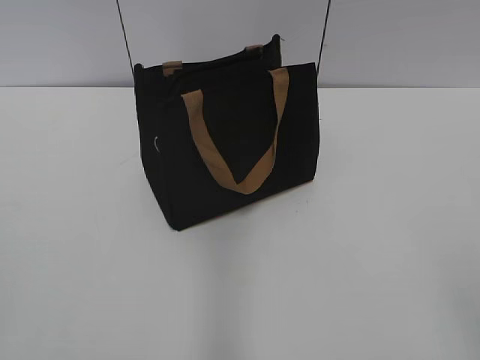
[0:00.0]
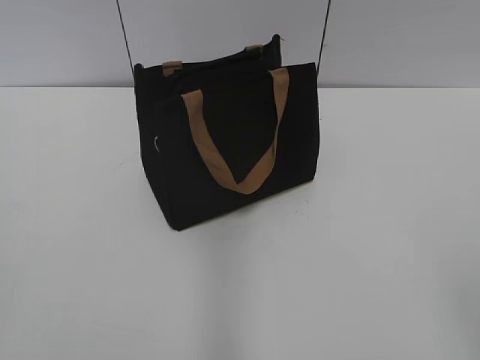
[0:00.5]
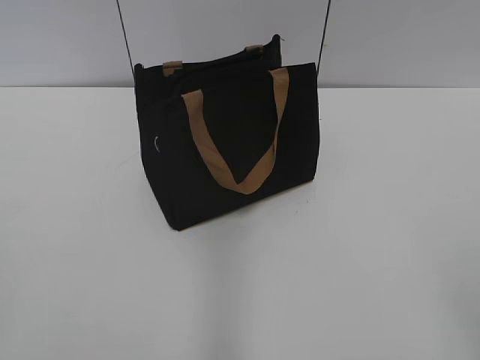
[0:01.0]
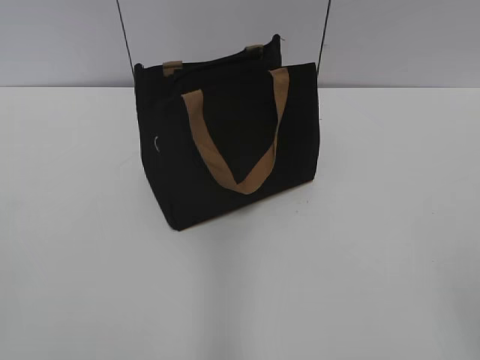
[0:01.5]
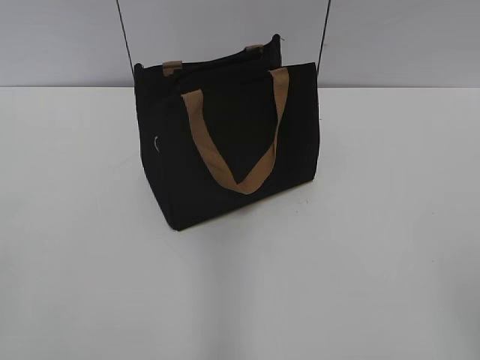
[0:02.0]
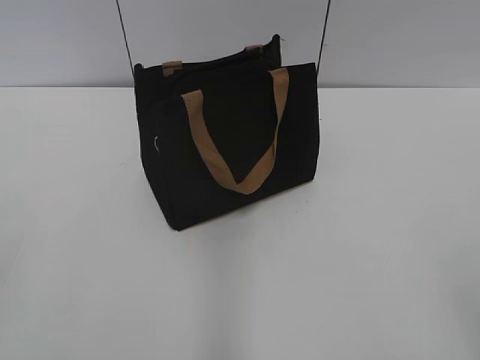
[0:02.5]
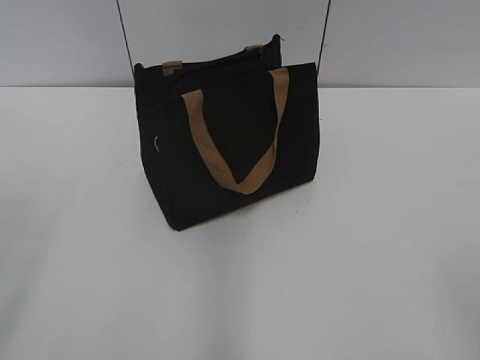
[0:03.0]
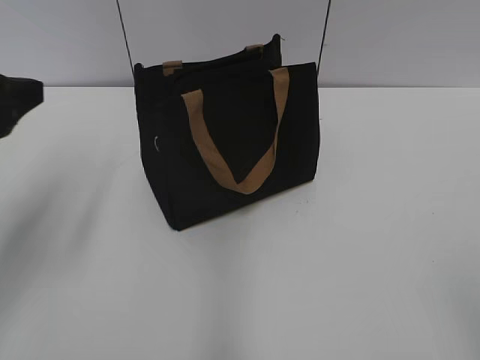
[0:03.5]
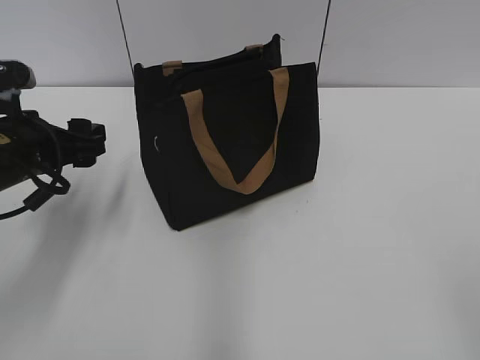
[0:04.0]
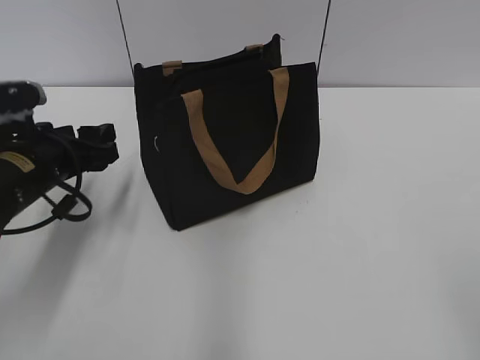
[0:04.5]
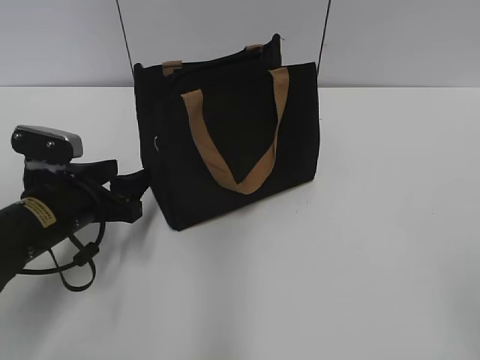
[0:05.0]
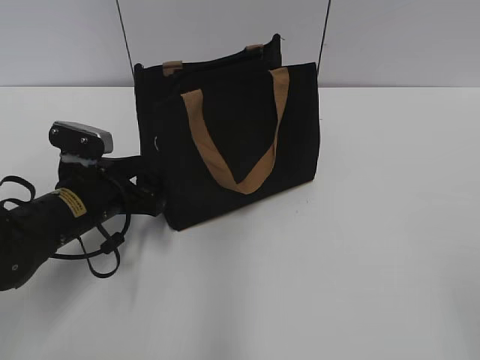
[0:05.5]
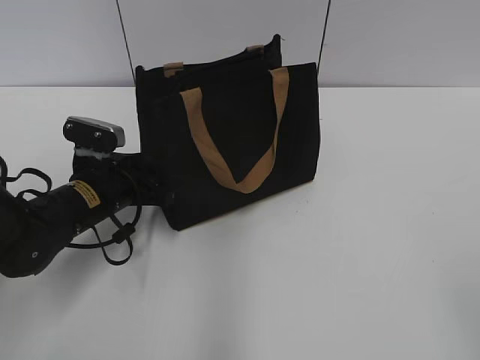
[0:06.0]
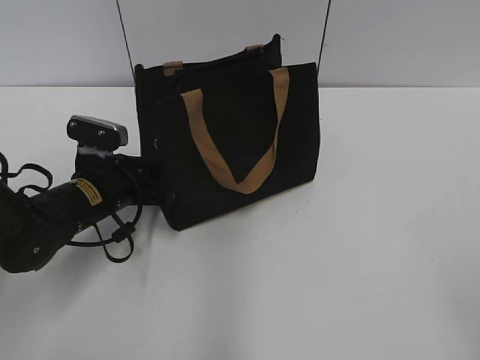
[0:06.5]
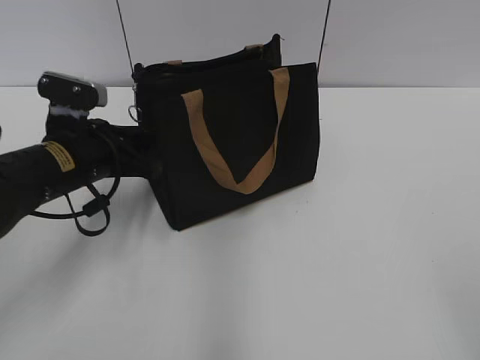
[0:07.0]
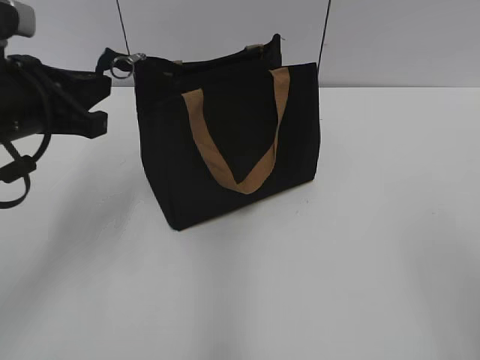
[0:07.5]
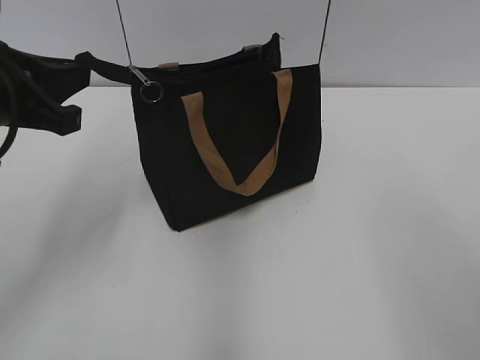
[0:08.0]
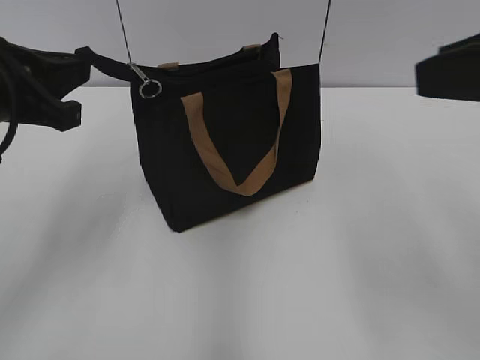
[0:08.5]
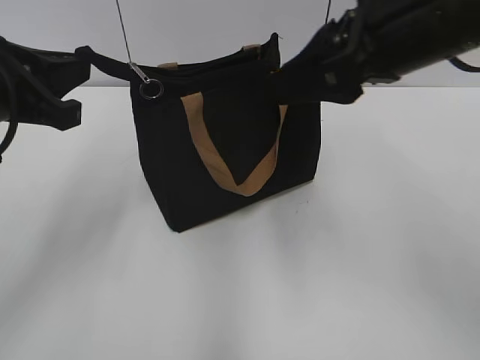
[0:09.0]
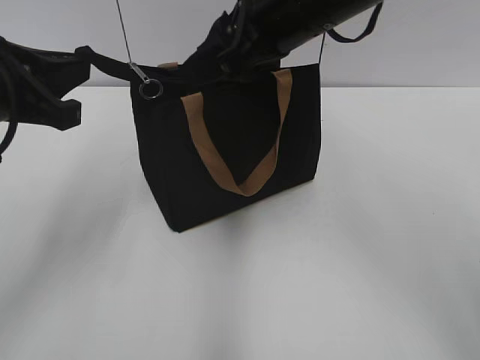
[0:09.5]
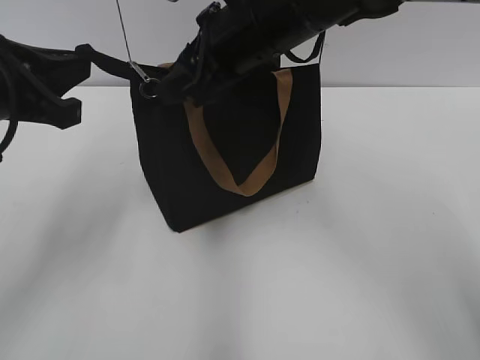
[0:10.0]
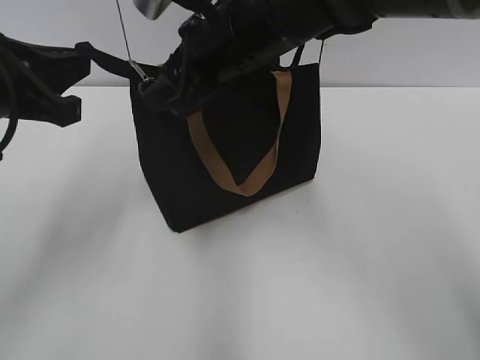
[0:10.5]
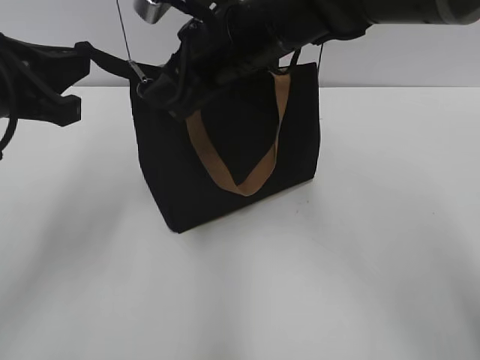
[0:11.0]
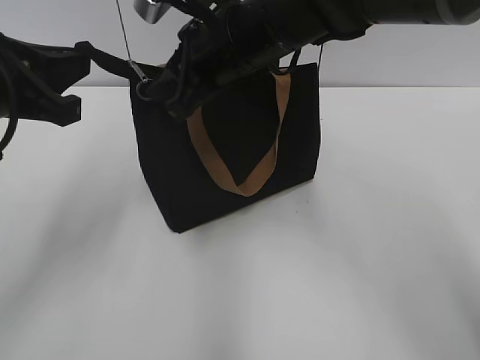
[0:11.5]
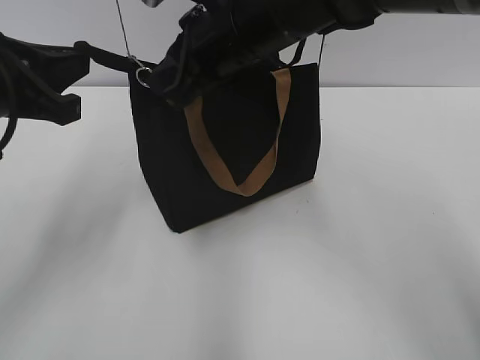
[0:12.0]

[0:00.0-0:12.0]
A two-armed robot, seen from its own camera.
0:02.0 to 0:04.0: The left gripper shifts about 30 cm forward, and opens up.
0:04.0 to 0:06.0: The left gripper heads downward and to the right, covering roughly 10 cm, and closes.
0:06.0 to 0:08.0: The left gripper travels upward by some 20 cm, and closes; the right gripper is displaced forward and upward by roughly 10 cm.
0:08.0 to 0:10.0: The right gripper heads forward and to the left, covering roughly 35 cm.
0:10.0 to 0:12.0: The right gripper closes its fingers.

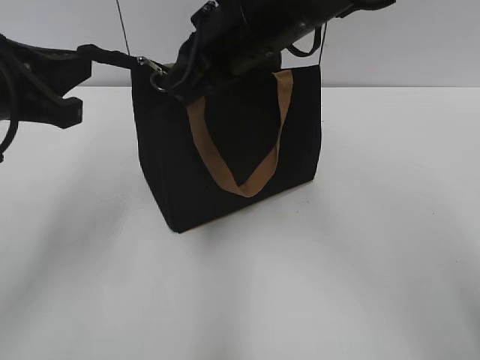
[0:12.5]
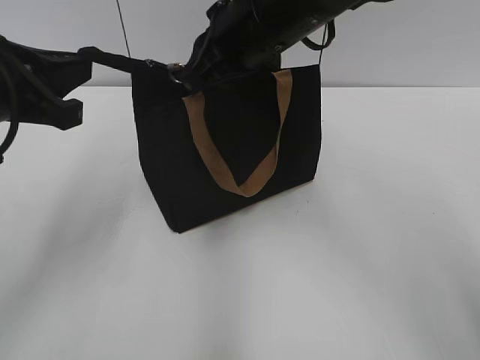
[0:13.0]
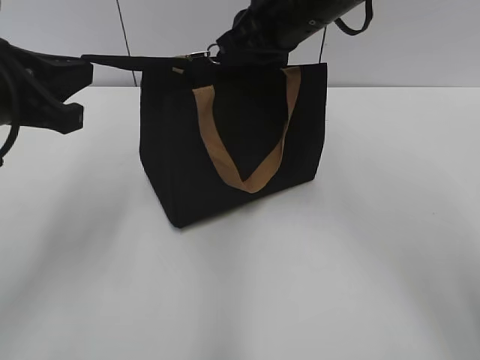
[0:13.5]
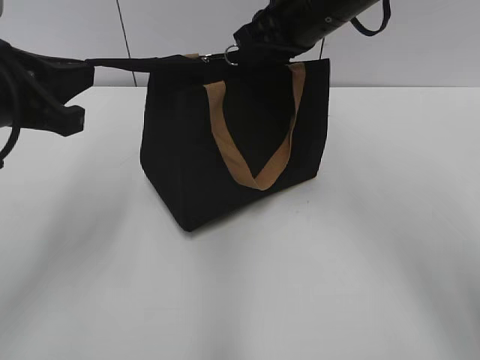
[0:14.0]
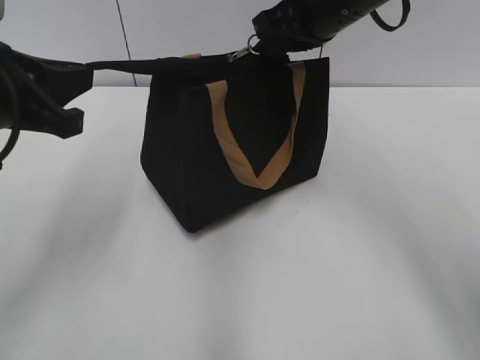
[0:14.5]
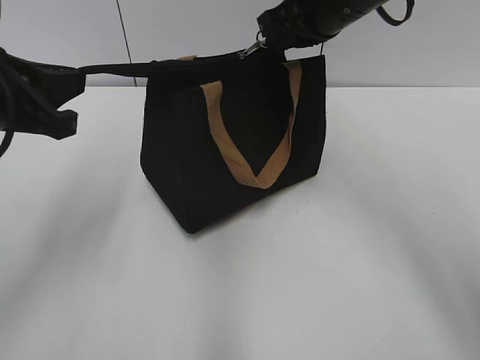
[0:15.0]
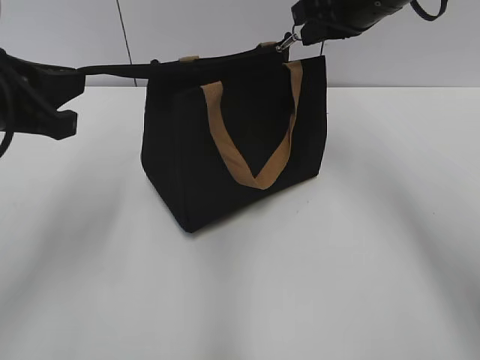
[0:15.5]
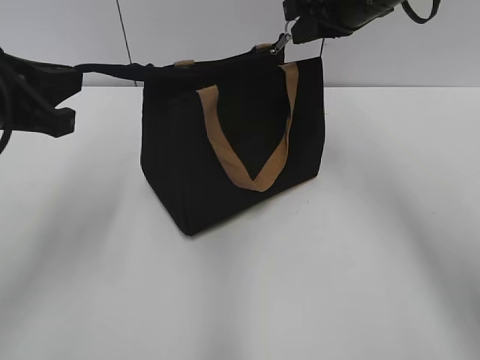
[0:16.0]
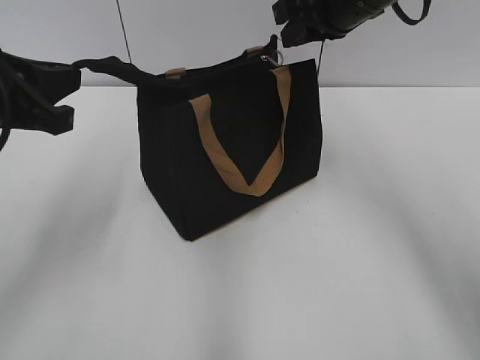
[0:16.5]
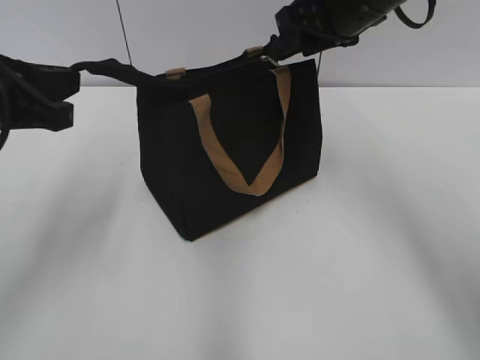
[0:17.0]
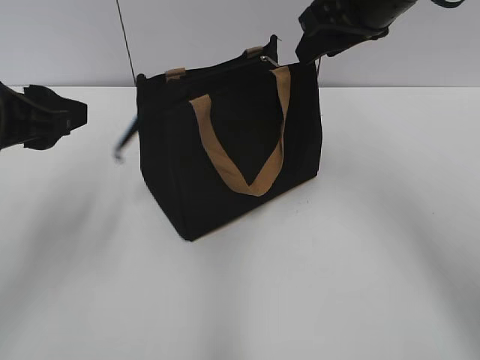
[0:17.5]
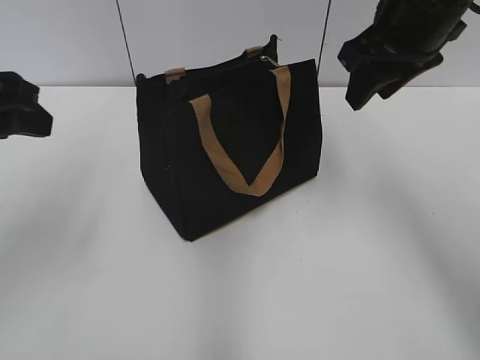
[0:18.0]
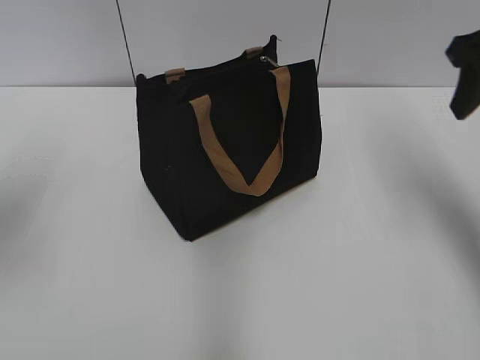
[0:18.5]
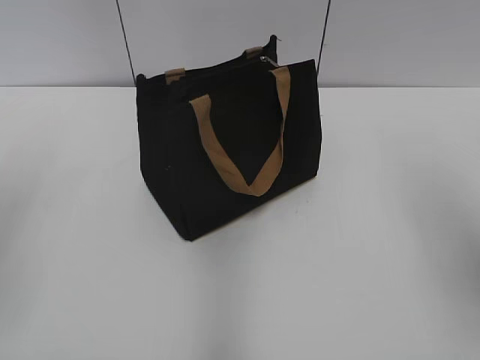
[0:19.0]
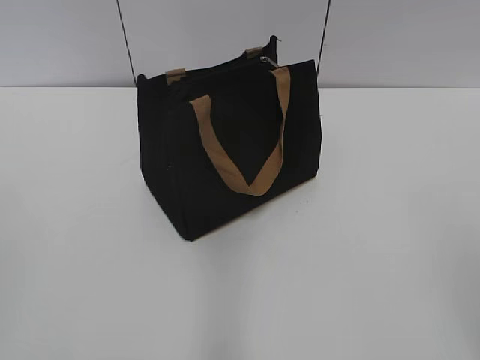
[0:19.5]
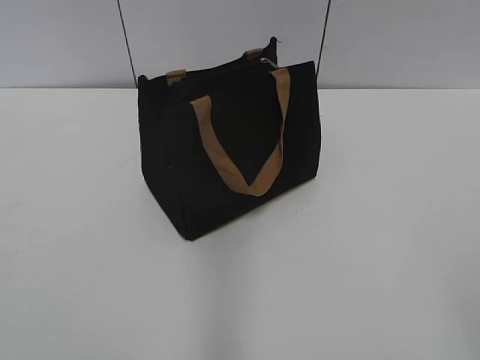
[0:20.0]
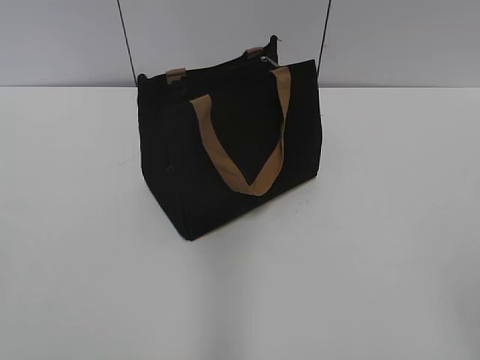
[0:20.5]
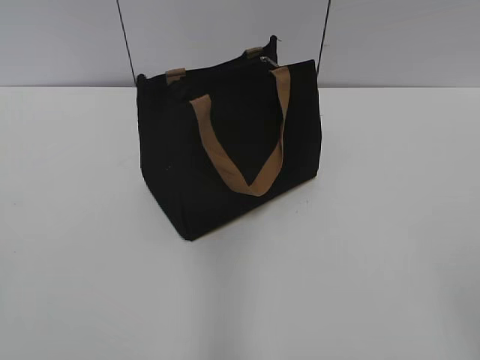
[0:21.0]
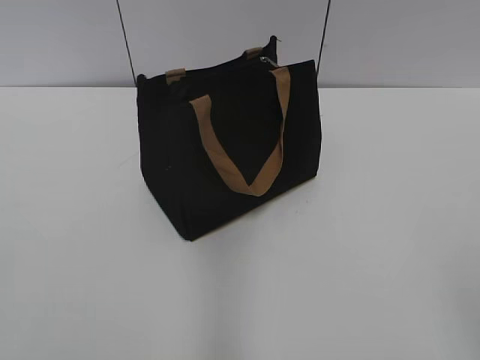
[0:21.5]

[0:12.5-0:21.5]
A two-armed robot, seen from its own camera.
Step, 0:12.5 to 0:16.5: Zip up the bag with your right hand.
0:12.5 to 0:14.5: The right gripper heads to the right and forward, covering roughly 10 cm.
0:14.5 to 0:17.0: The right gripper opens its fingers.
0:17.0 to 0:19.5: The right gripper heads backward and to the right, covering about 35 cm. Meanwhile the left gripper shifts some 20 cm backward and to the left, and opens up.

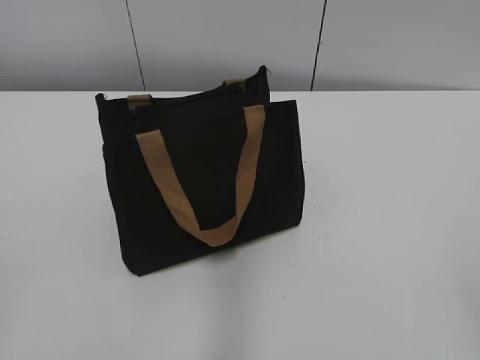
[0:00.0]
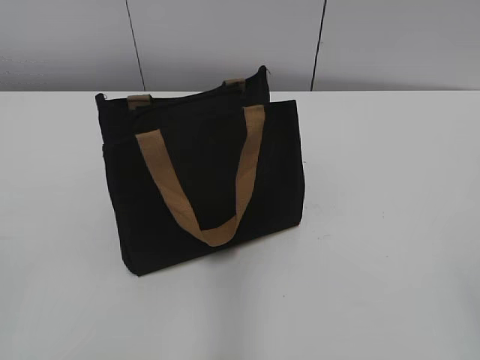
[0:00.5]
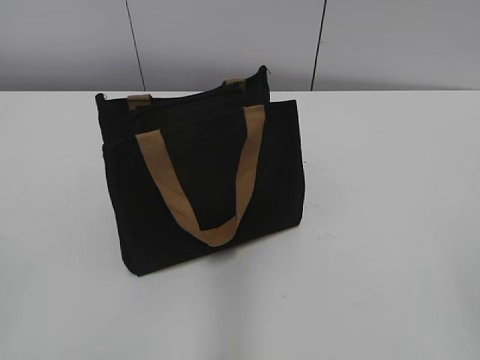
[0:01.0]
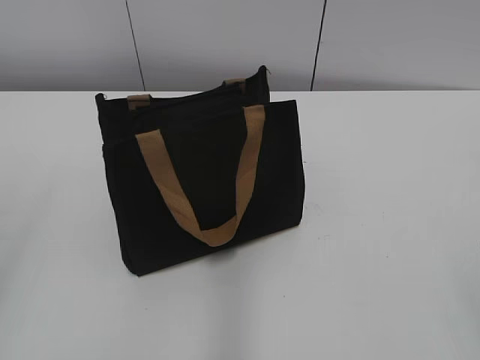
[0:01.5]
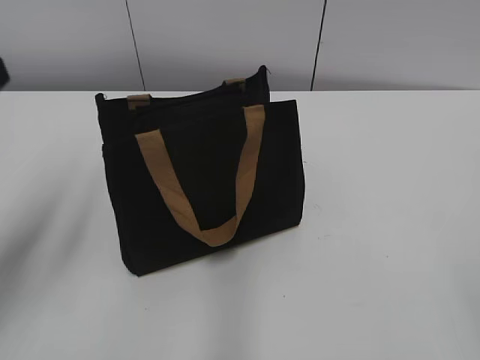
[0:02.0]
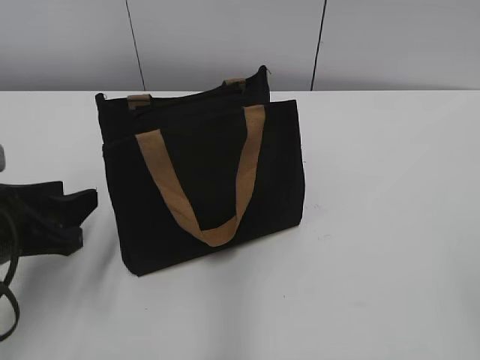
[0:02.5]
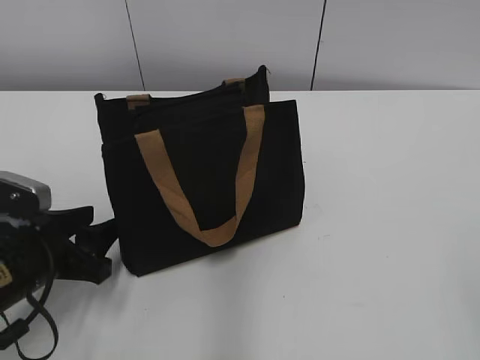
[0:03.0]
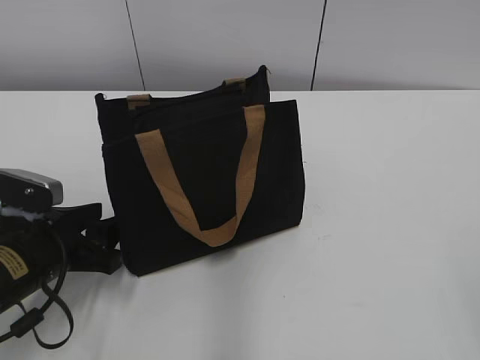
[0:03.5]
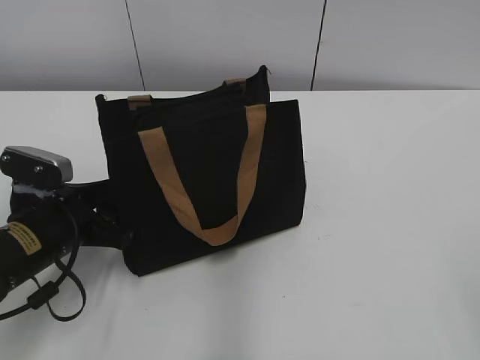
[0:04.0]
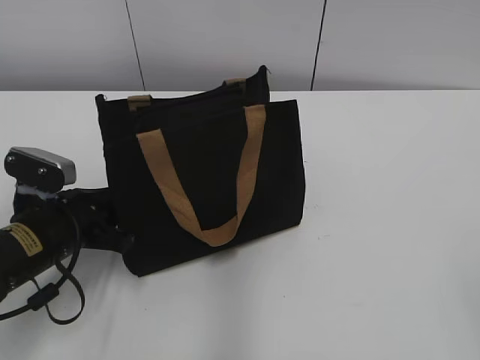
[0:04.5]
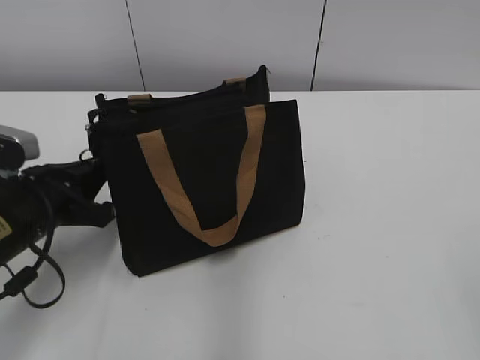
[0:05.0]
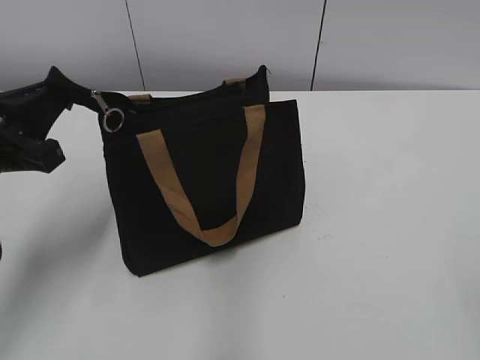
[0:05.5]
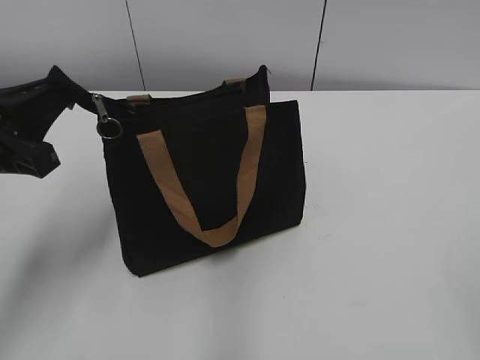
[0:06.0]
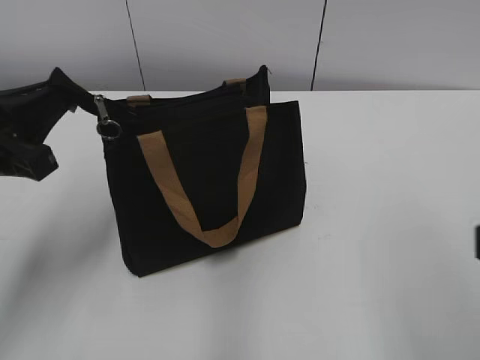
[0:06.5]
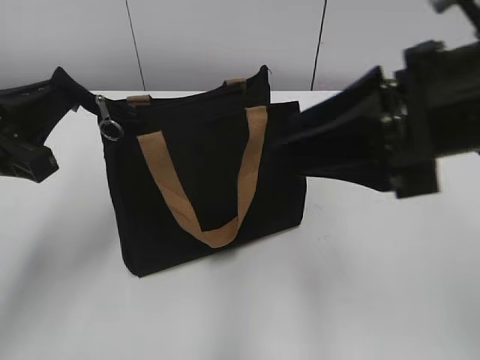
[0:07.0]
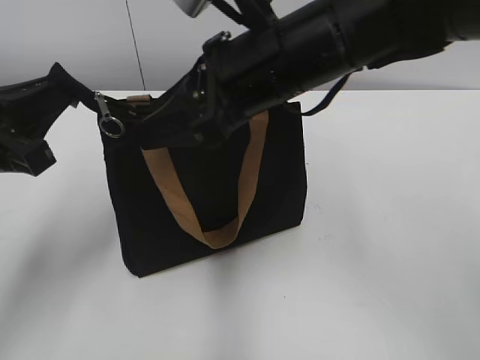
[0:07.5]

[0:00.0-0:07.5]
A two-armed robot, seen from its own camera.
0:02.0 to 0:04.0: The left gripper moves downward, approximately 20 cm.
0:04.0 to 0:05.5: The left gripper heads upward, covering some 10 cm, and closes up.
0:05.5 to 0:07.5: The right gripper travels forward and to the left by approximately 35 cm.
